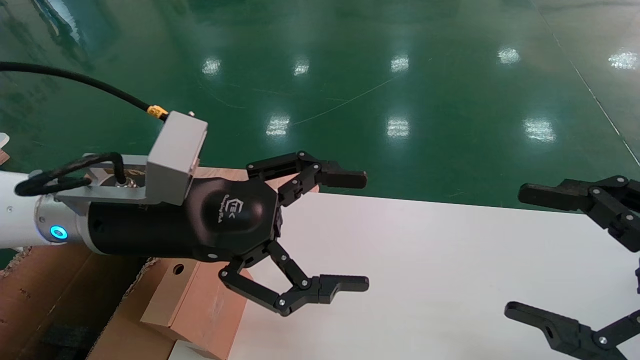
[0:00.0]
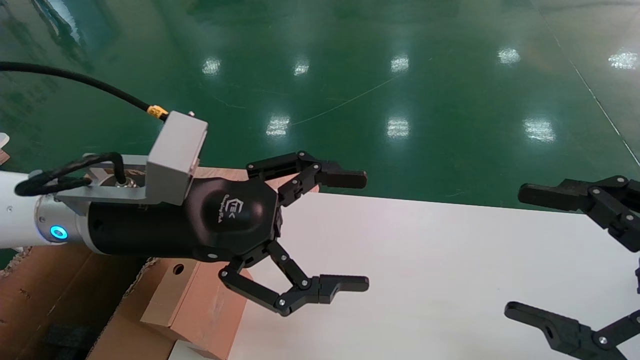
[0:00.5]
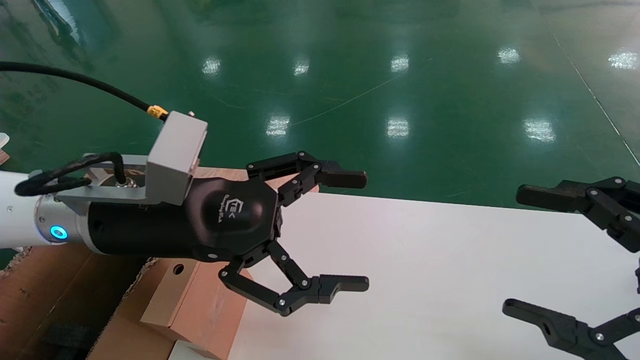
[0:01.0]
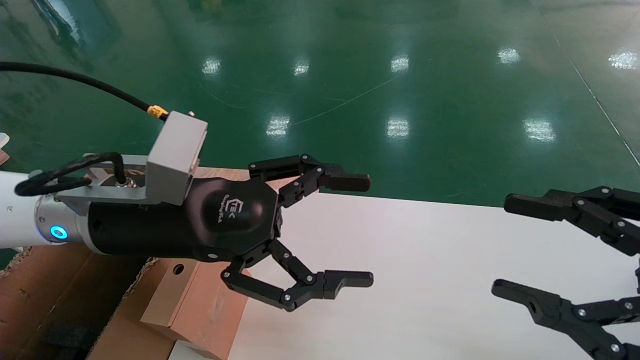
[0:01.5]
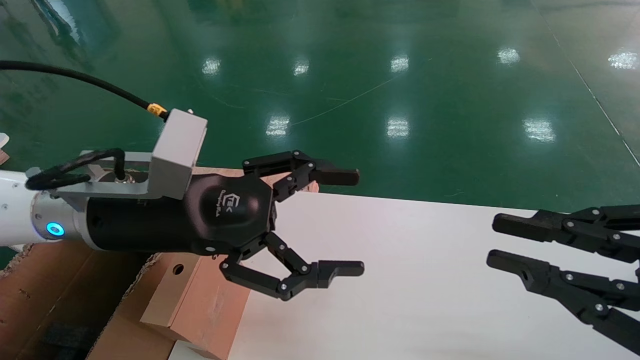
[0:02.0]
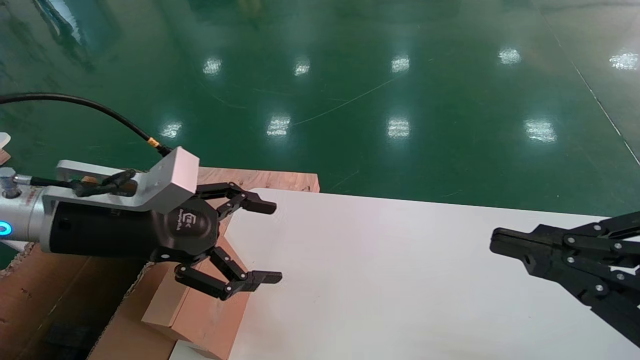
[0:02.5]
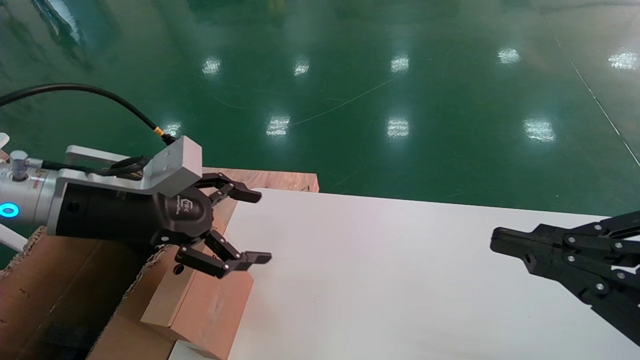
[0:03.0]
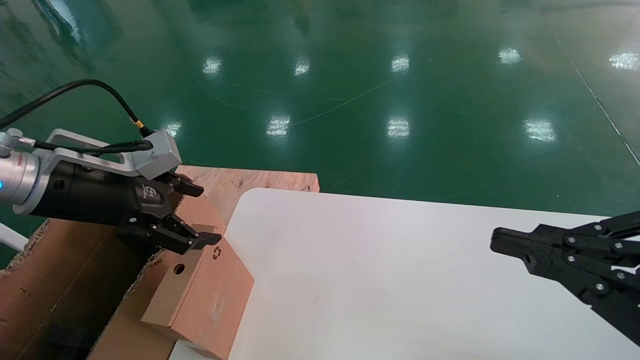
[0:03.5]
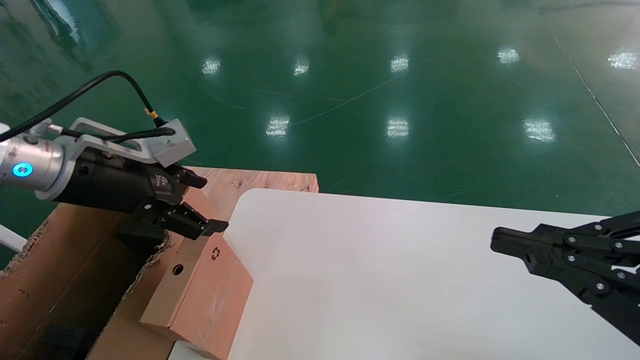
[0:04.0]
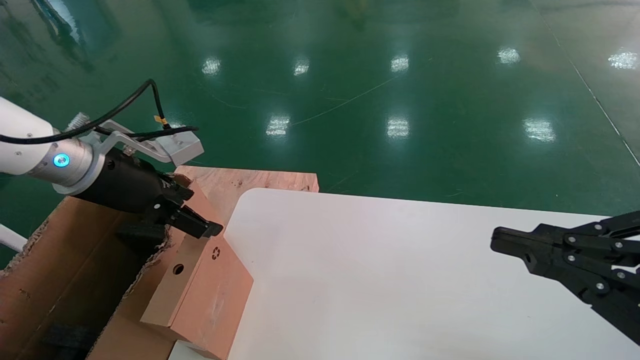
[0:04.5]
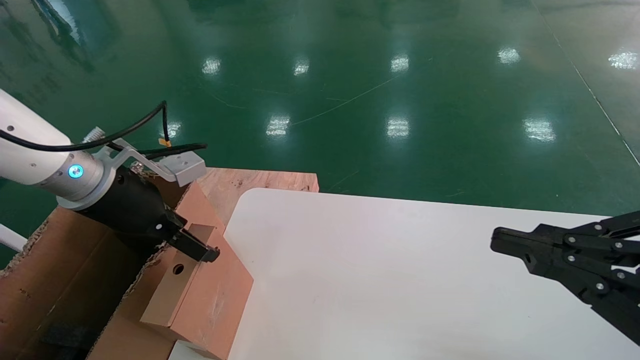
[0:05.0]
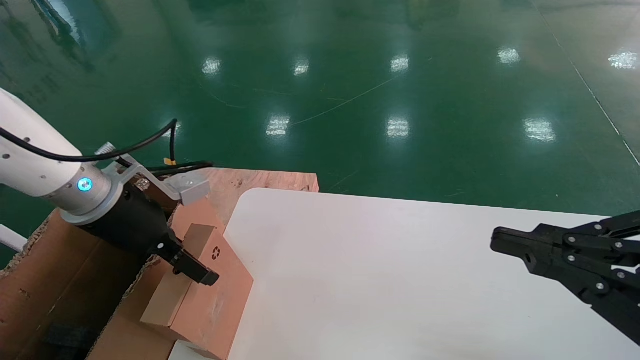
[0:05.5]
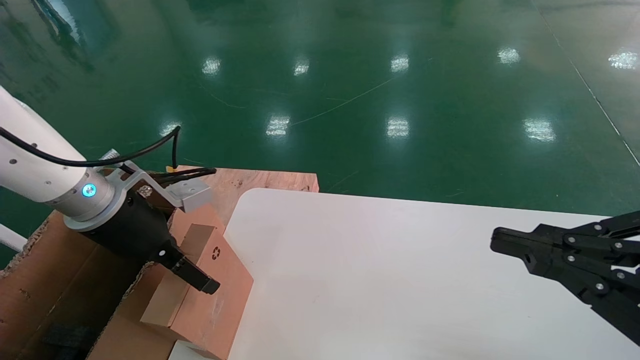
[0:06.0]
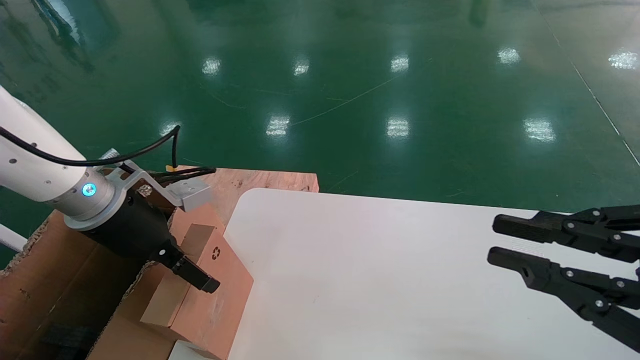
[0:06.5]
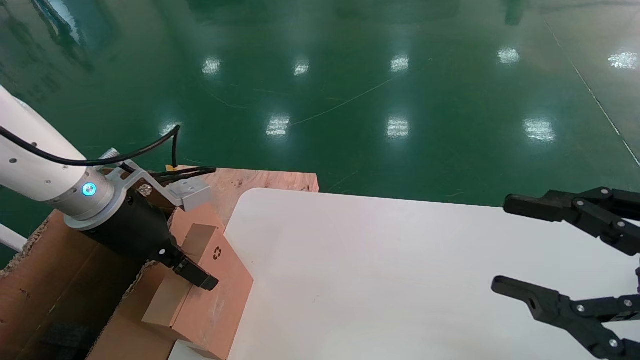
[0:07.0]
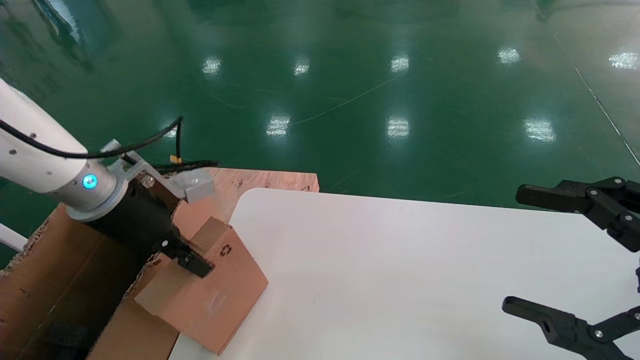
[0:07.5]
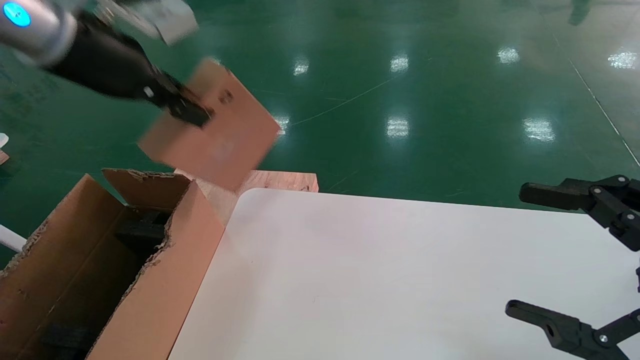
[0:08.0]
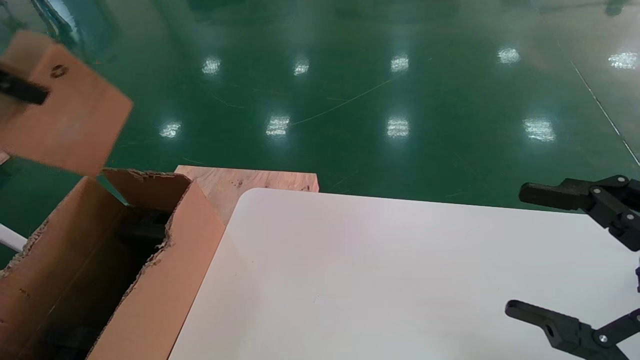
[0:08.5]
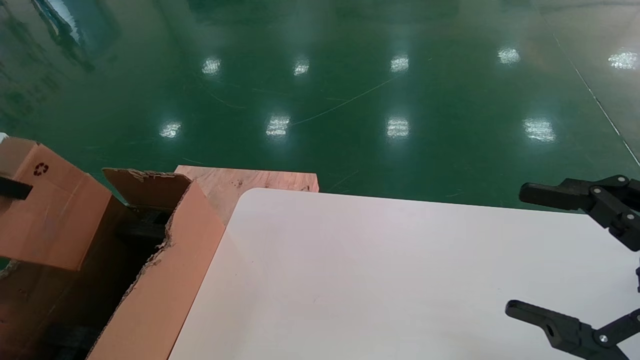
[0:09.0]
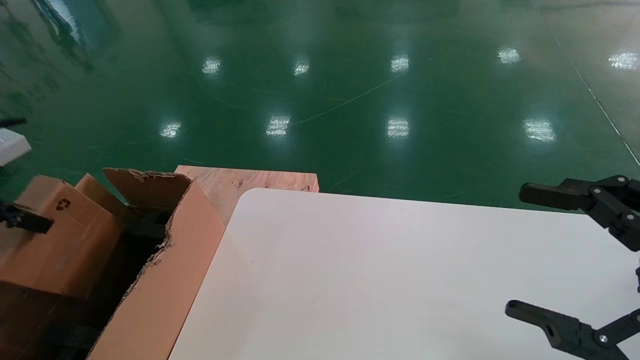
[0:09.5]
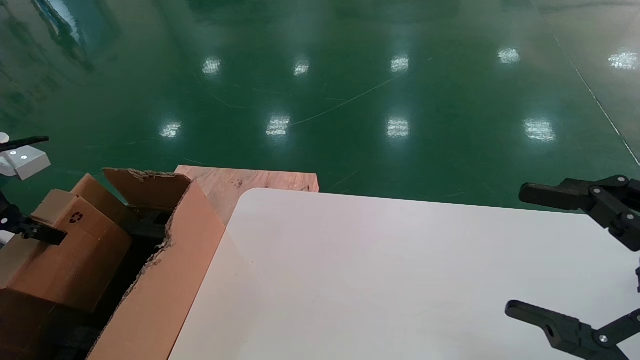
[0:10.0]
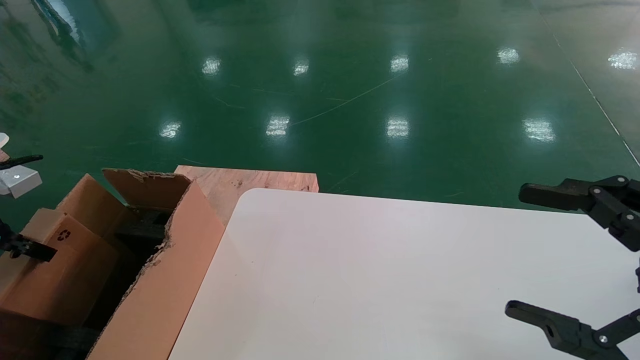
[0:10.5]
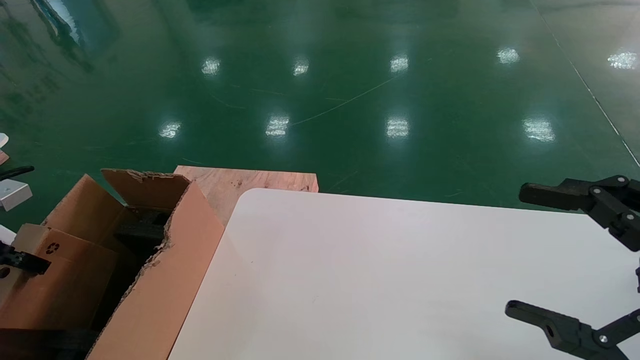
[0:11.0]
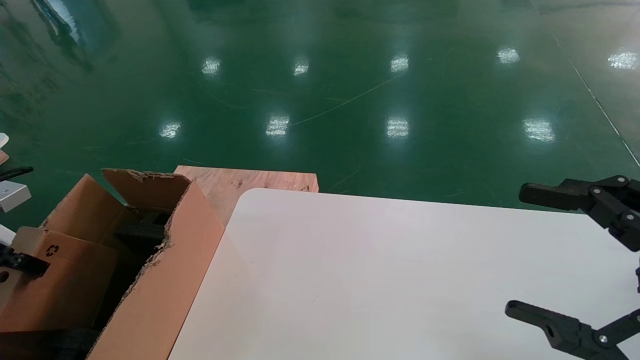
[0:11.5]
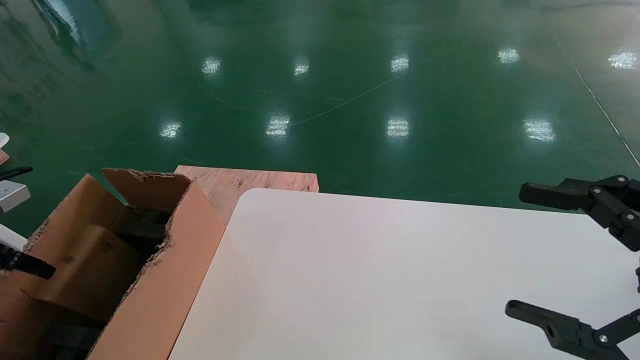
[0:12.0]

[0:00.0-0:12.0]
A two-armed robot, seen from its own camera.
Task of the whole recording: place the small box on the table into the large box on the left.
Step, 0:02.5 to 0:07.5: Pick up the mouse and the power cord paper box.
0:00.0 to 0:02.0: The right gripper closes its fingers.
0:02.0 to 0:04.0: The left gripper goes about 10 cm to the left.
0:04.0 to 0:06.0: The left gripper ends up approximately 5 cm from where it was.
0:06.0 to 0:08.0: The left gripper heads upward, covering some 20 cm, and closes its fingers, while the right gripper opens its fingers.
0:08.0 to 0:10.0: The left gripper is displaced to the left and downward by approximately 25 cm.
0:10.0 to 0:12.0: The left gripper travels downward by roughly 5 cm, and opens up.

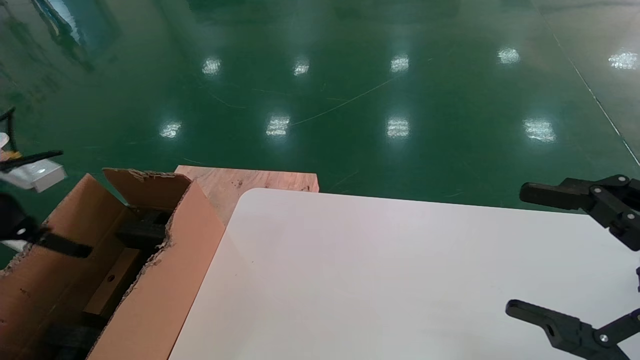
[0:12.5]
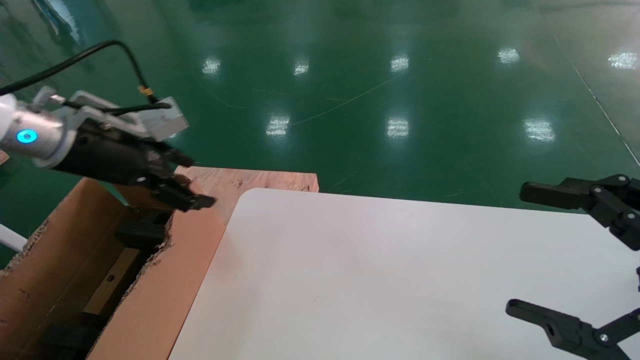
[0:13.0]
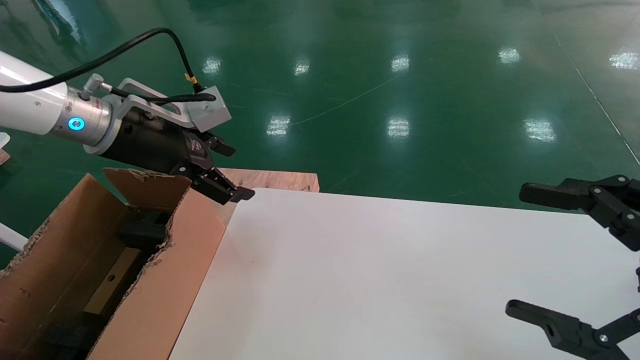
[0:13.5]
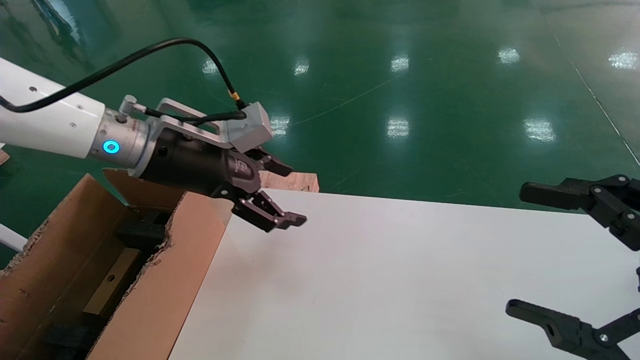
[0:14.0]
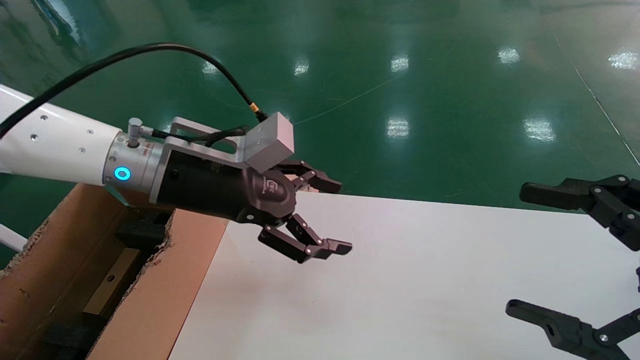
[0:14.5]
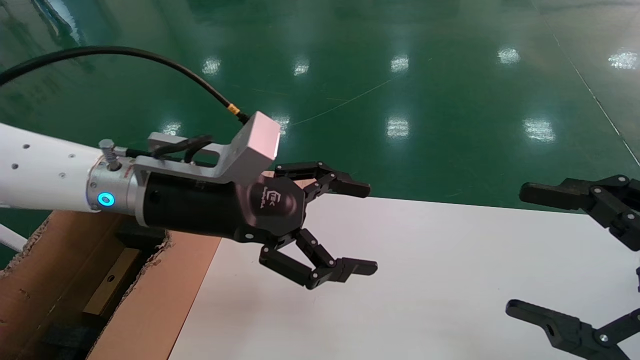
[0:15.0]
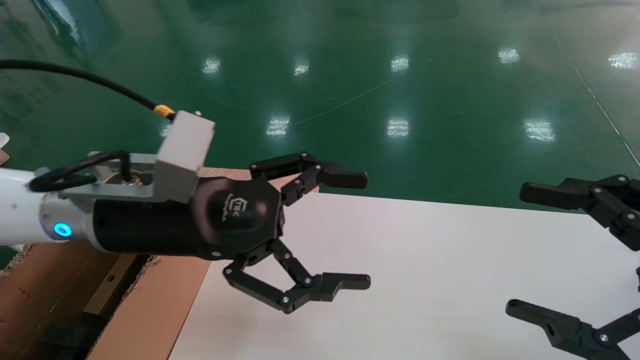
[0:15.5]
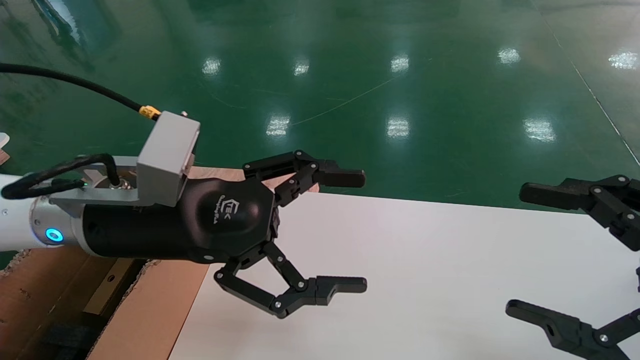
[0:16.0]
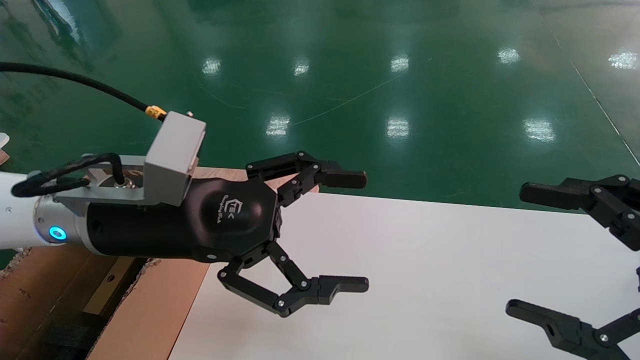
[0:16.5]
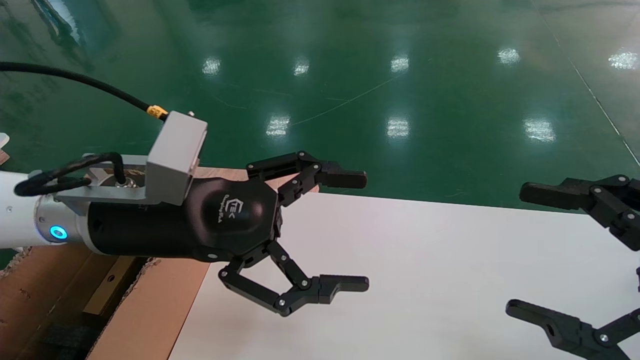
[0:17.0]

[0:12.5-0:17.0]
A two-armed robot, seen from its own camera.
Task of the whole recording: place the small box on the table into the large box on the left.
0:12.5 to 0:14.5: The left gripper goes about 30 cm to the right.
0:14.5 to 0:17.0: The left gripper travels backward by some 5 cm.
